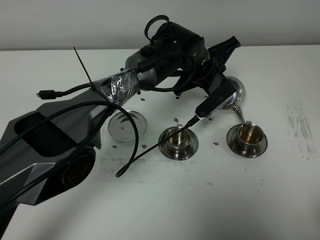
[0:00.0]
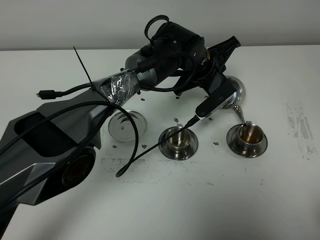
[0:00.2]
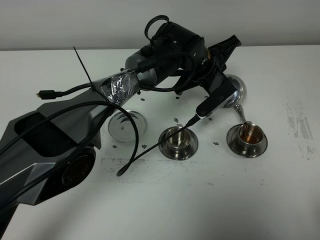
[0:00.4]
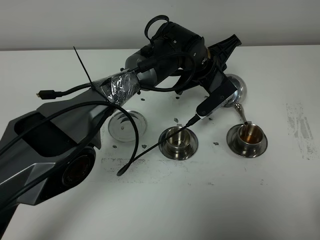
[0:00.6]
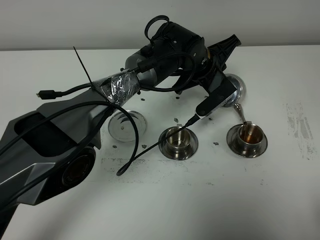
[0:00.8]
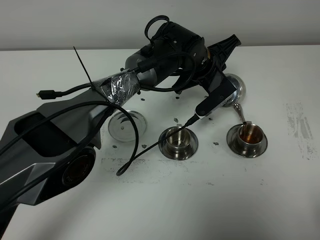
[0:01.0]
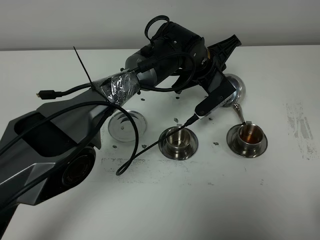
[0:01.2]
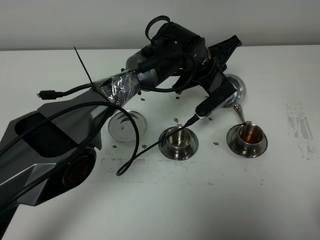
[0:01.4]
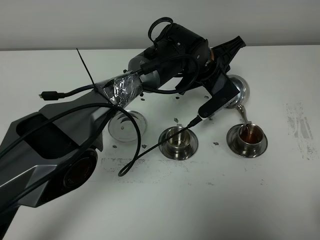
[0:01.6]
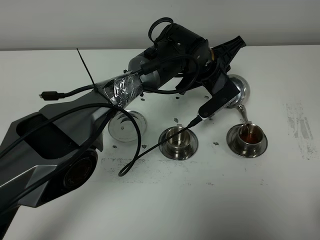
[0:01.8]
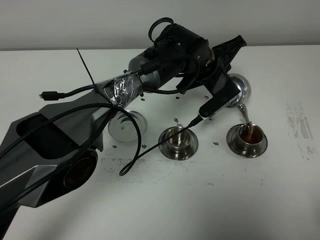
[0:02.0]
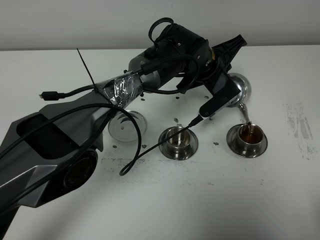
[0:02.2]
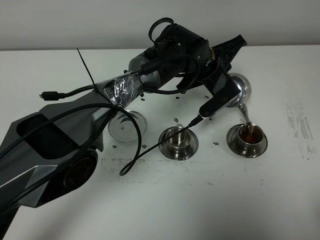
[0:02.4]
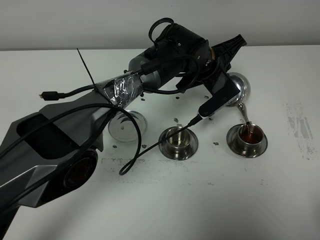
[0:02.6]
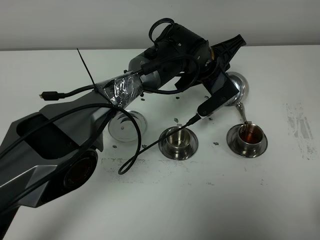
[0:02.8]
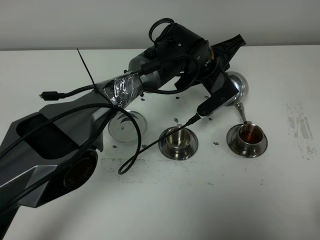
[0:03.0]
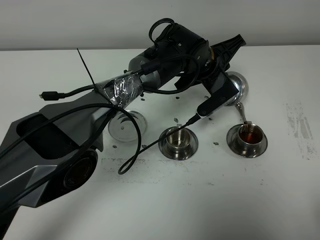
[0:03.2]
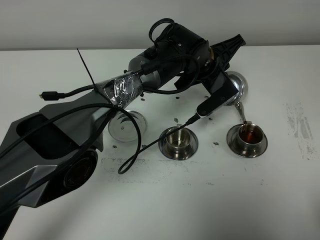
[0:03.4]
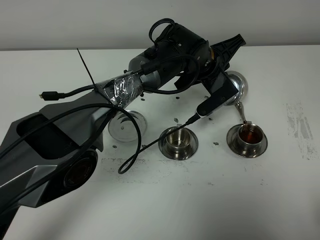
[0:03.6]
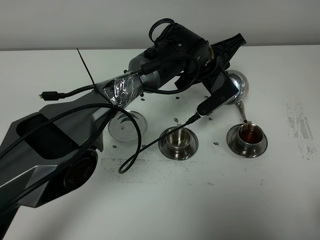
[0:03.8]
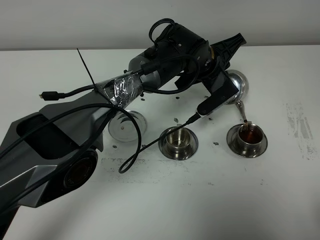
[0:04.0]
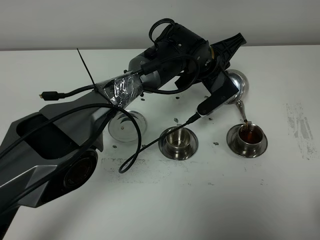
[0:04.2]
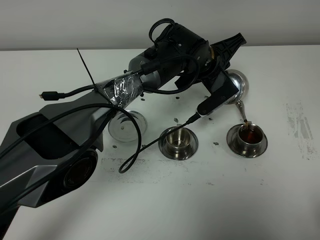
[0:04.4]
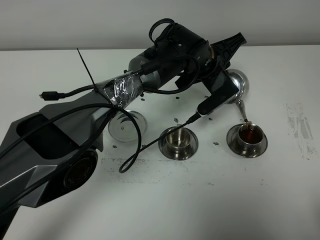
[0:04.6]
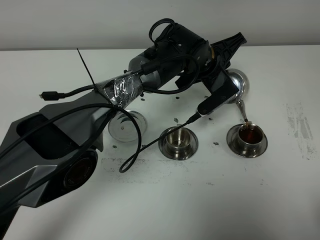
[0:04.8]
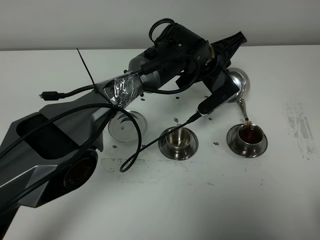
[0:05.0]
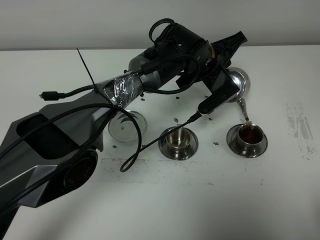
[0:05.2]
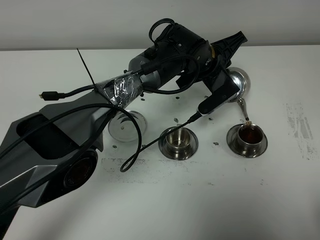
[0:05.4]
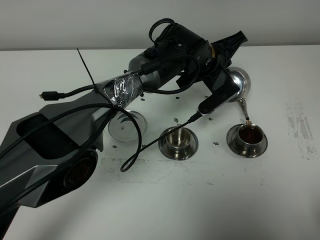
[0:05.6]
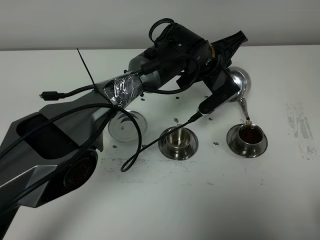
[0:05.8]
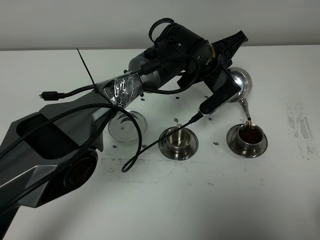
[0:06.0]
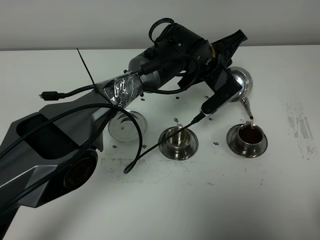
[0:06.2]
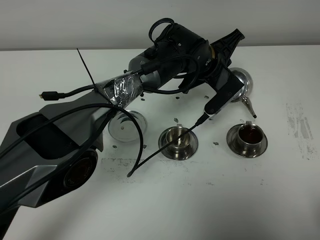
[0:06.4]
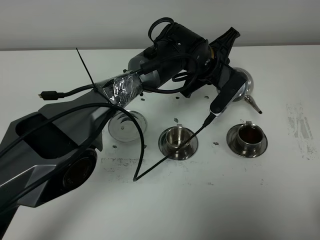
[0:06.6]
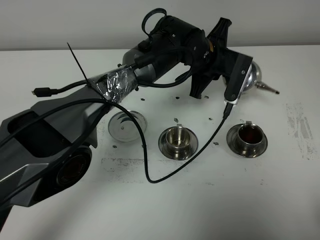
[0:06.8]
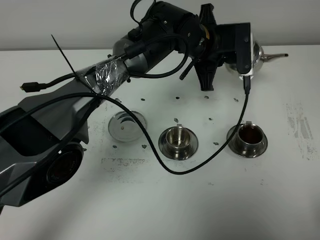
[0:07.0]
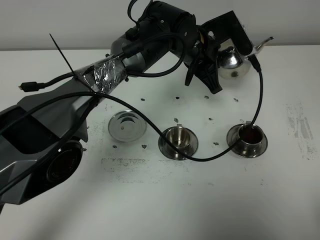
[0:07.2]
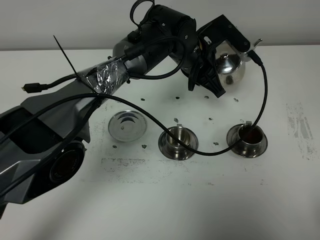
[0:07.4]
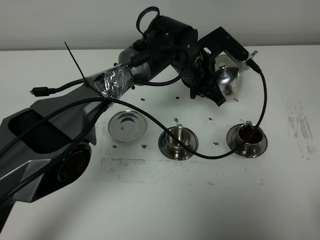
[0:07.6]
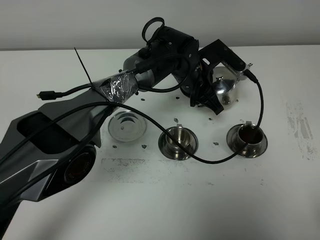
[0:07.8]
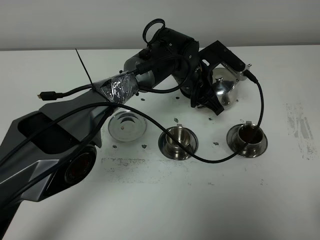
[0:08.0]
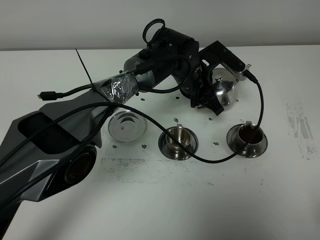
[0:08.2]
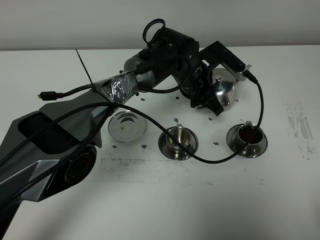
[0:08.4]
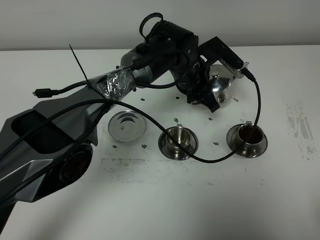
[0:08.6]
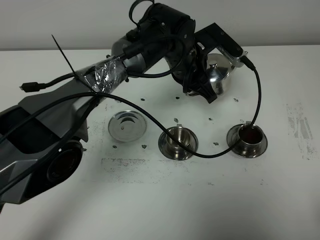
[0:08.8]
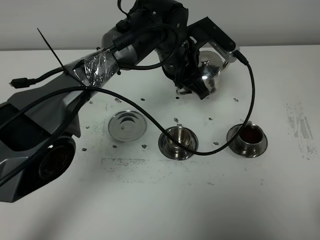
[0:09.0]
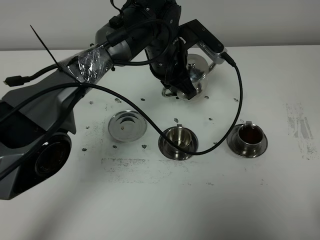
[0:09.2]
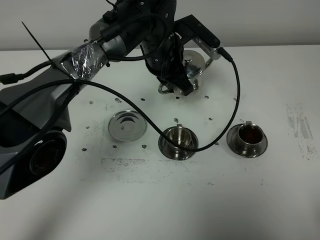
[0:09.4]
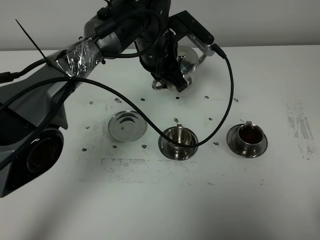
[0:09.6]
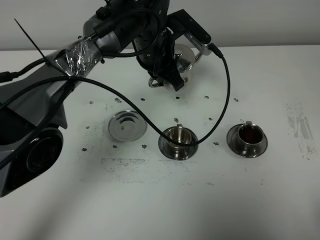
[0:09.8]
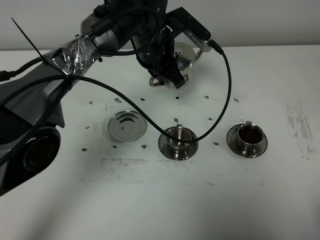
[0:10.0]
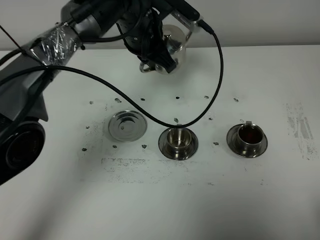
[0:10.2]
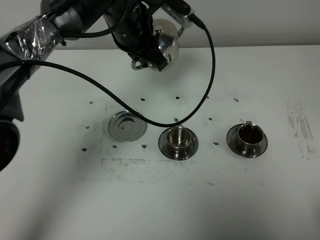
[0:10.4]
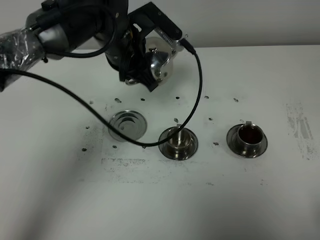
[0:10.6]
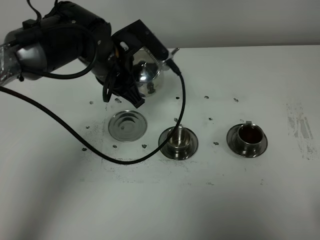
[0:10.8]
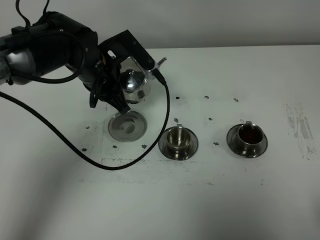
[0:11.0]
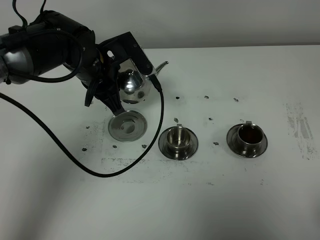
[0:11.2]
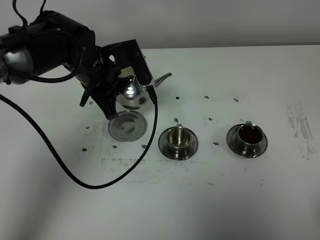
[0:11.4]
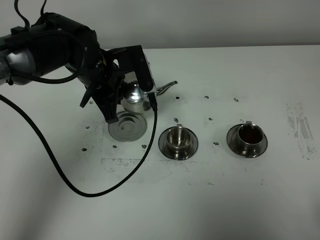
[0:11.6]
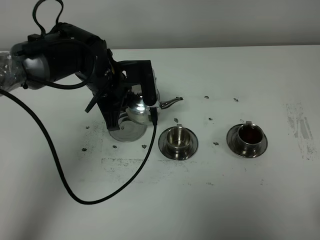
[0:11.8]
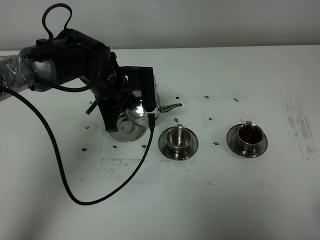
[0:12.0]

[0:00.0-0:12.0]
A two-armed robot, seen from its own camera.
Task of the whole recording: grasp the stainless steel teapot and pour the tea into the two stainless steel teacups one by one, put the stainless steel teapot back in its original place.
0:00.0 to 0:01.6: Both grippers stay put.
0:01.6 to 0:04.4: Both grippers stay about where they are.
0:04.4 to 0:06.0: Neither gripper changes place.
0:07.6 to 0:09.0: The left gripper changes place by roughly 5 cm.
0:09.0 to 0:10.4: The left gripper is displaced to the left and upward by roughly 10 cm.
0:10.4 to 0:12.0: The left gripper heads downward, covering about 10 cm.

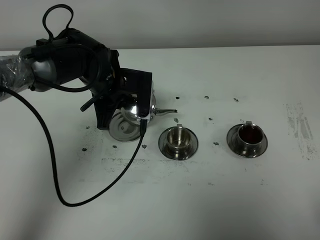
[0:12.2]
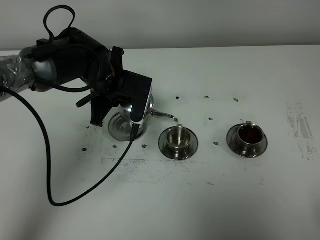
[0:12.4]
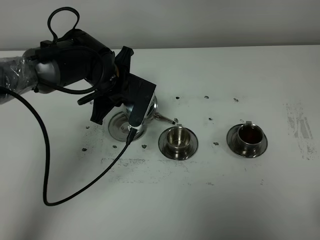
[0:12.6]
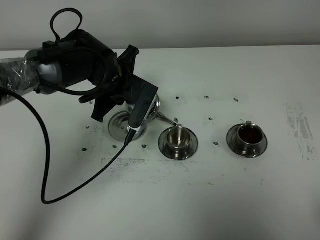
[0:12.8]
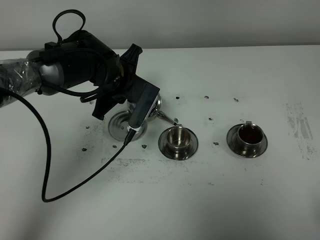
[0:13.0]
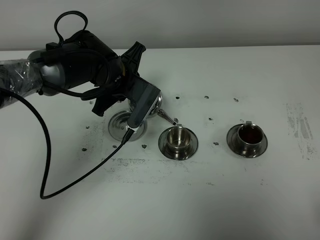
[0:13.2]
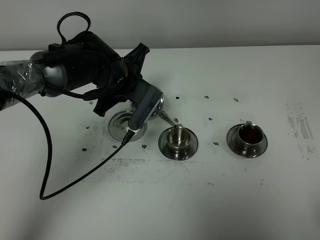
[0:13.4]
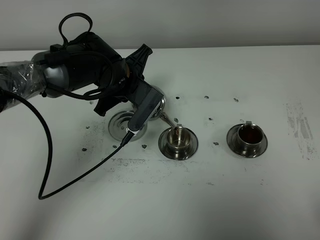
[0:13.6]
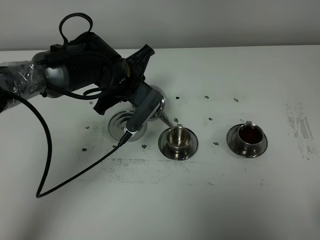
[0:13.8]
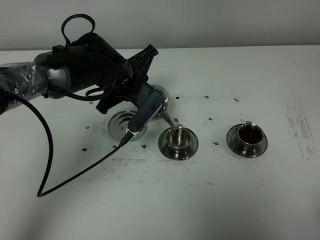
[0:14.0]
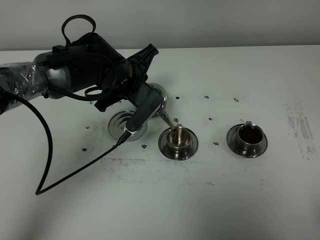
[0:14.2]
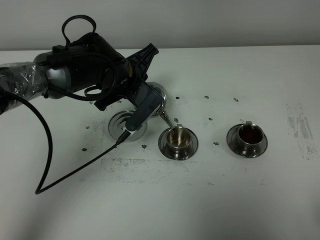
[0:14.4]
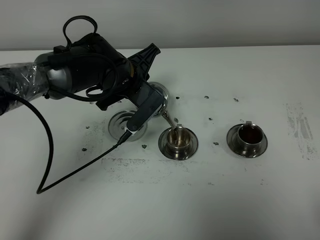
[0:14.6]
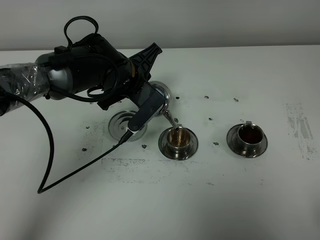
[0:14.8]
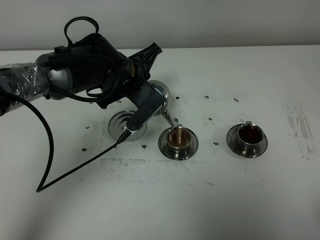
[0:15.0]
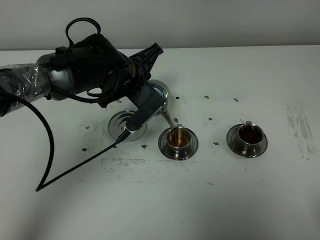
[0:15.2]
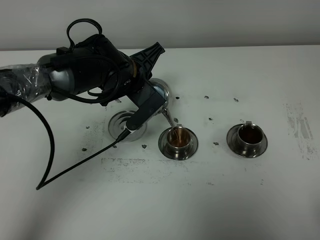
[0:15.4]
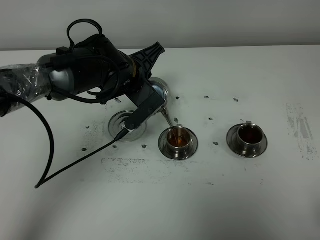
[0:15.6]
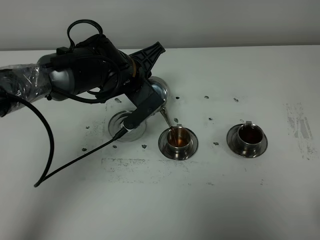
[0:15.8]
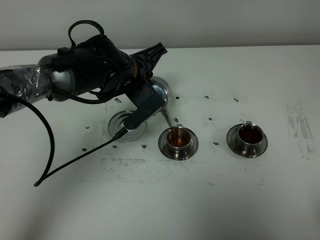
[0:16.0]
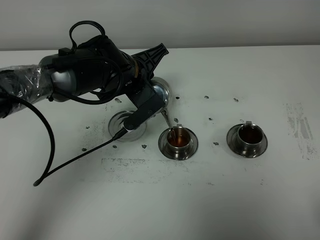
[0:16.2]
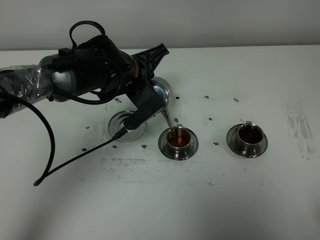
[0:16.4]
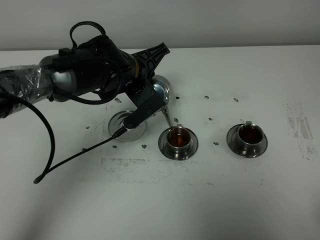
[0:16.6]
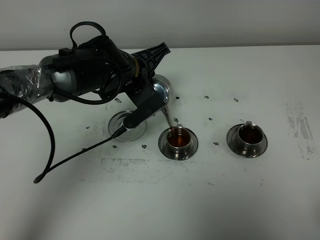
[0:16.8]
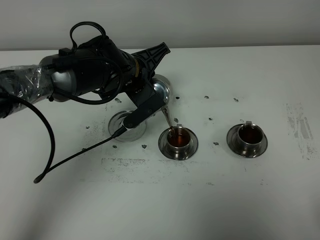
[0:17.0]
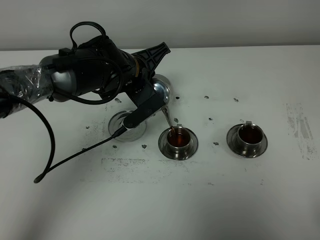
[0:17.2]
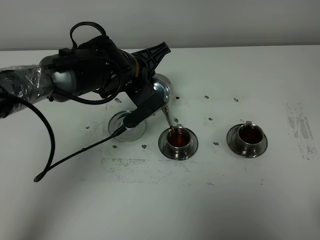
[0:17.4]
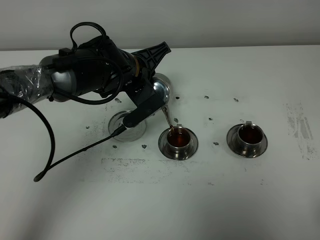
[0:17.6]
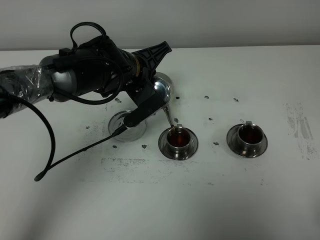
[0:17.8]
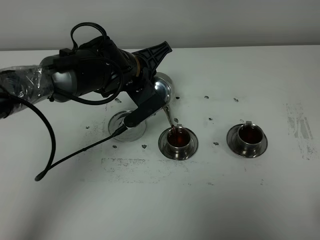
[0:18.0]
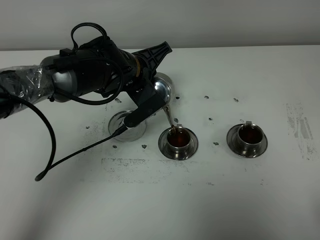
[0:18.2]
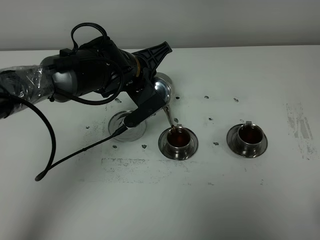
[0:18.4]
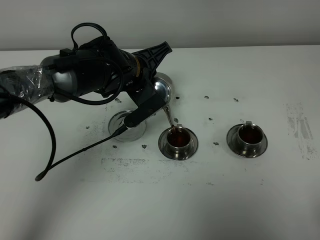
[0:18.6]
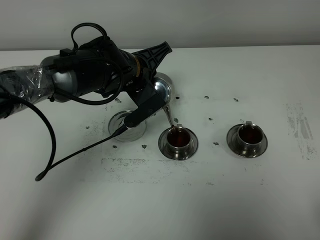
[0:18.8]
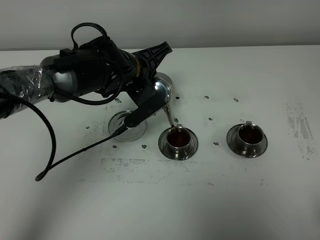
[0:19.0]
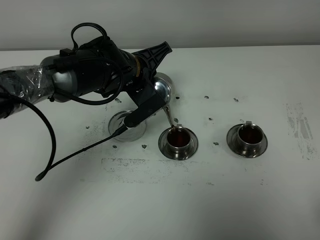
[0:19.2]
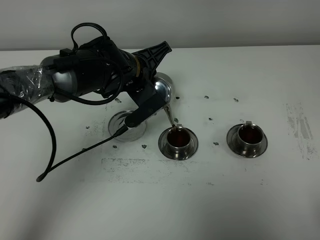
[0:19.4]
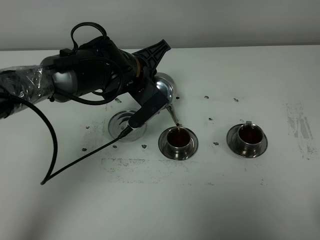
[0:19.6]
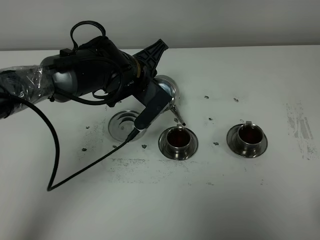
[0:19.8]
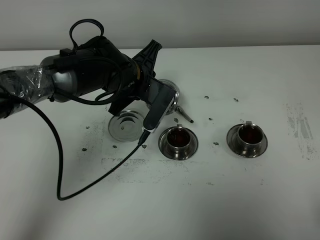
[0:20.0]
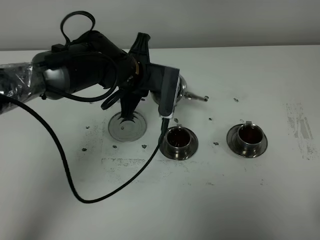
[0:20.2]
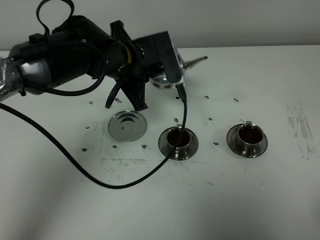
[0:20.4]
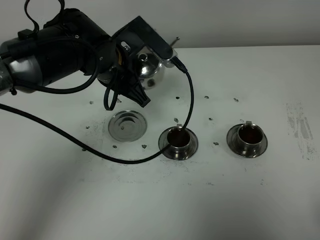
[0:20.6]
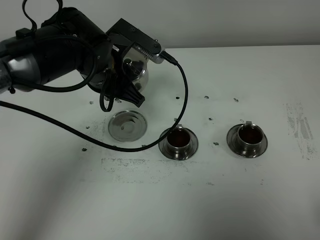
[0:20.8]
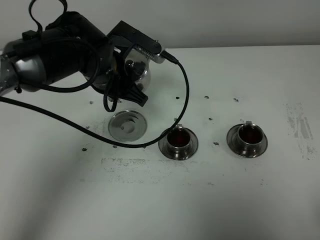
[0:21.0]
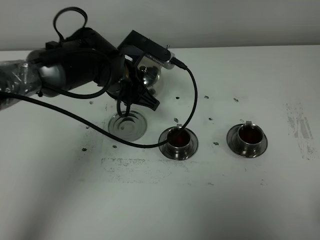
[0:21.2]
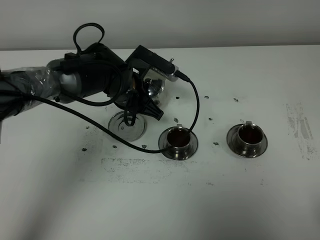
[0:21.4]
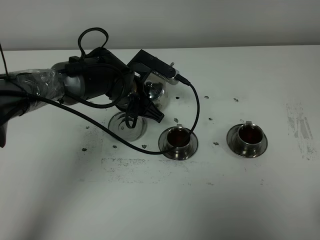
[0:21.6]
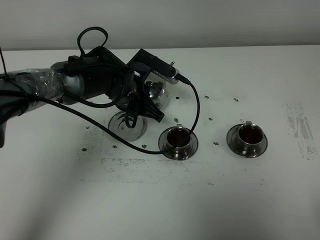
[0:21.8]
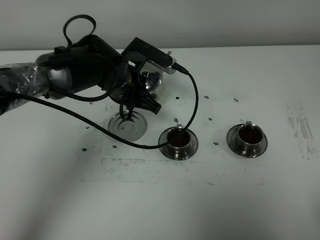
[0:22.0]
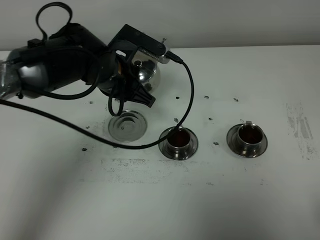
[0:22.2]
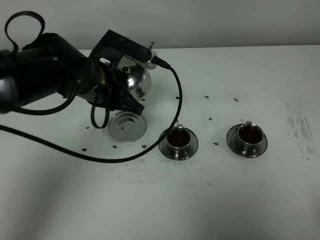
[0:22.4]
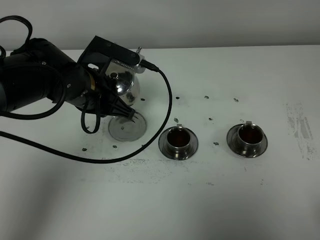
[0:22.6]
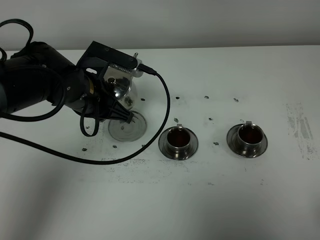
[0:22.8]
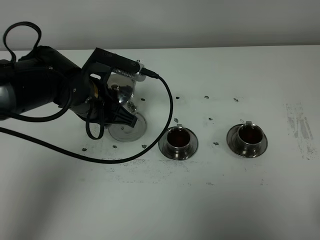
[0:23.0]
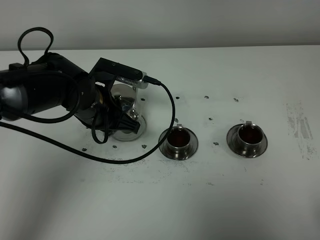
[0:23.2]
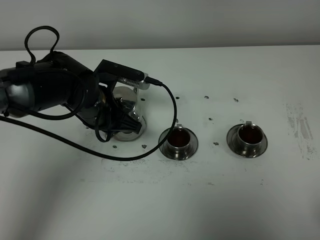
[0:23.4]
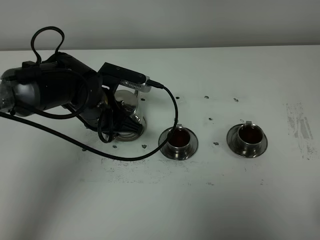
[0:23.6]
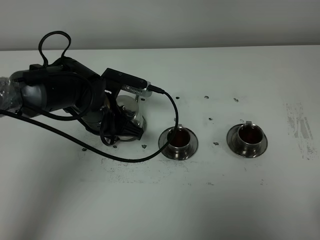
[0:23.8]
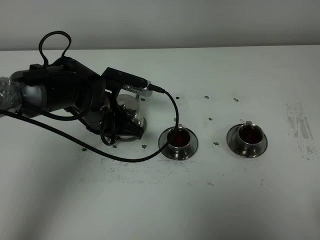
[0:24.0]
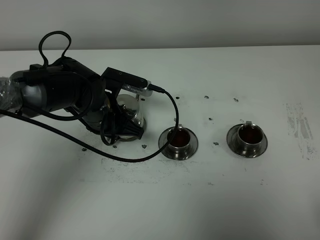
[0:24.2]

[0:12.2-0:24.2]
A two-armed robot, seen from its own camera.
Task of the whole recording: grasp the stainless steel teapot and pour the tea into the two stainless steel teacups one by one, put the stainless steel teapot back in its original place.
Step, 0:12.2 to 0:19.8: Pour tea into the teacup with the left gripper.
0:13.8 to 0:16.6: There are only small adjustments of the grippers.
0:16.6 to 0:18.2: The two grippers keep their place.
0:18.2 to 0:19.8: There are only small adjustments of the grippers.
0:21.2 to 0:22.6: The left gripper moves backward, approximately 5 cm.
0:22.6 to 0:24.2: The left gripper heads downward, covering about 5 cm.
